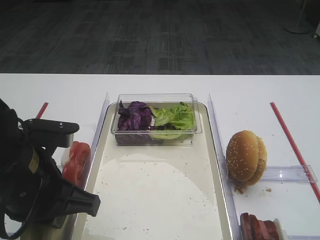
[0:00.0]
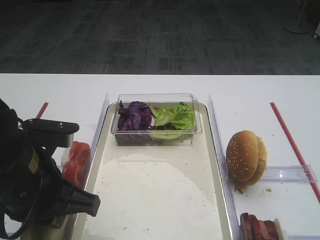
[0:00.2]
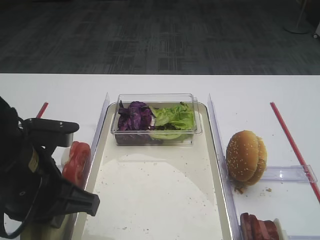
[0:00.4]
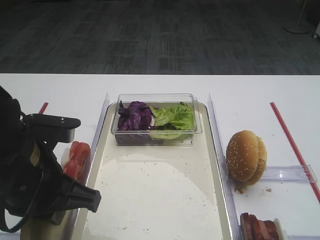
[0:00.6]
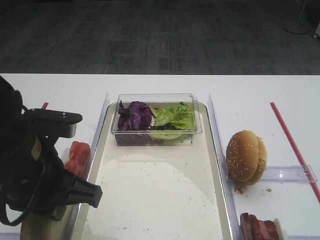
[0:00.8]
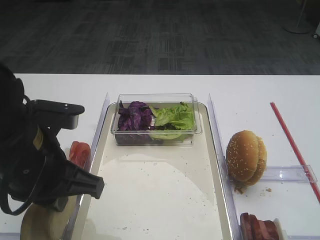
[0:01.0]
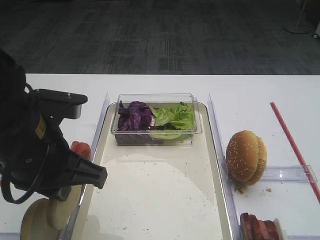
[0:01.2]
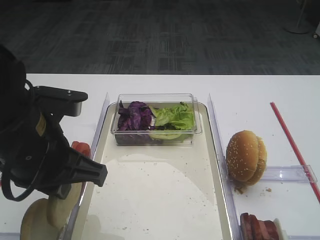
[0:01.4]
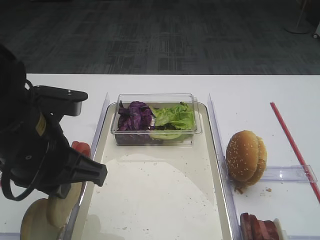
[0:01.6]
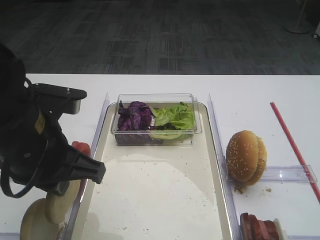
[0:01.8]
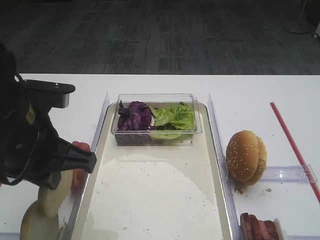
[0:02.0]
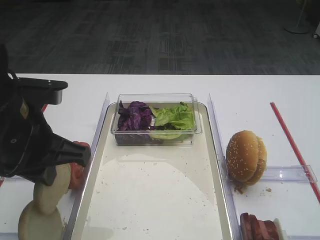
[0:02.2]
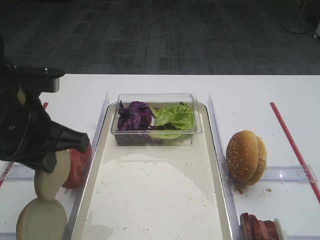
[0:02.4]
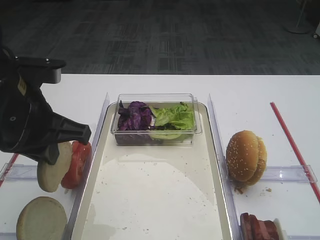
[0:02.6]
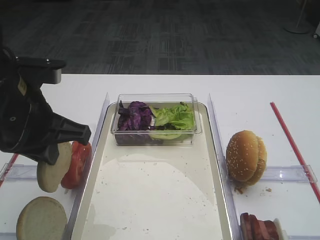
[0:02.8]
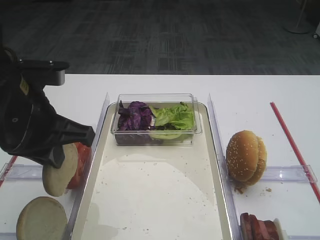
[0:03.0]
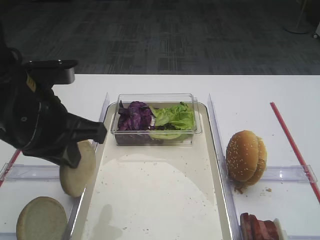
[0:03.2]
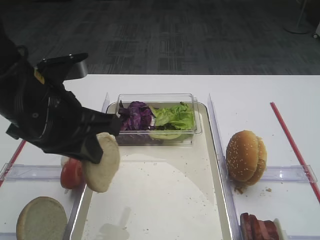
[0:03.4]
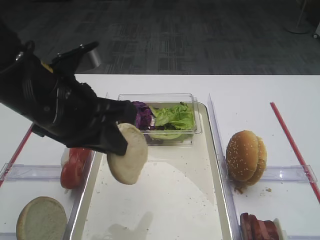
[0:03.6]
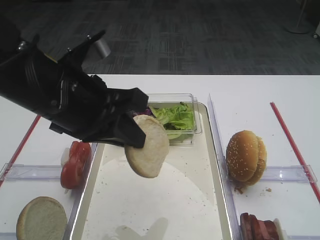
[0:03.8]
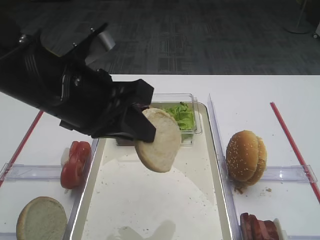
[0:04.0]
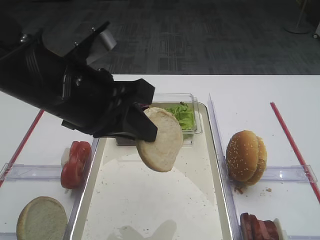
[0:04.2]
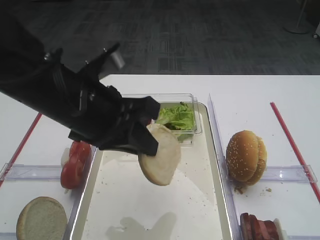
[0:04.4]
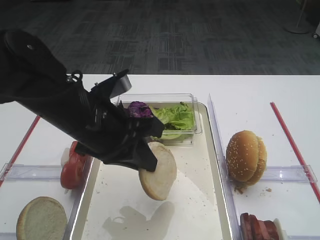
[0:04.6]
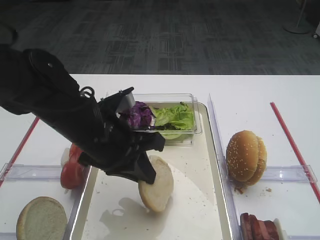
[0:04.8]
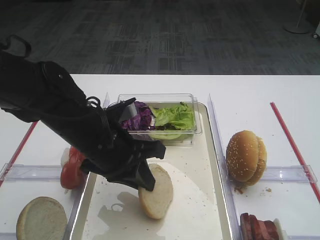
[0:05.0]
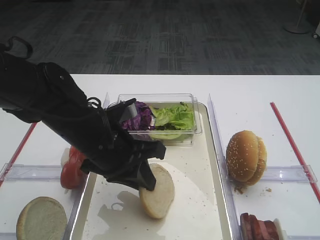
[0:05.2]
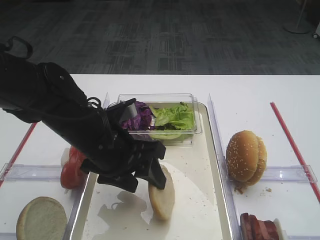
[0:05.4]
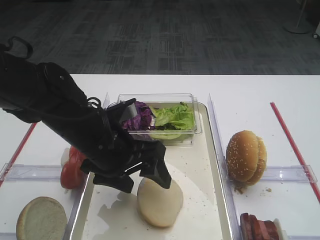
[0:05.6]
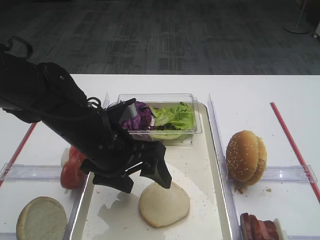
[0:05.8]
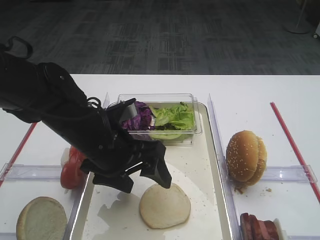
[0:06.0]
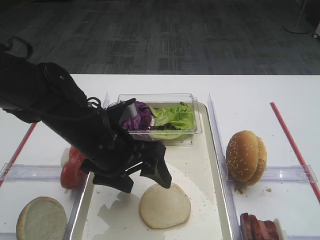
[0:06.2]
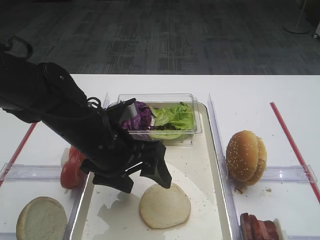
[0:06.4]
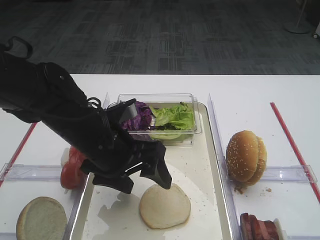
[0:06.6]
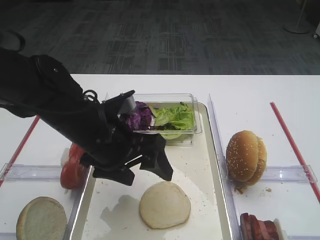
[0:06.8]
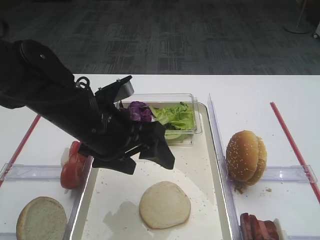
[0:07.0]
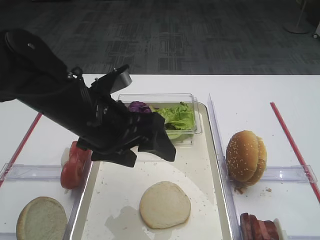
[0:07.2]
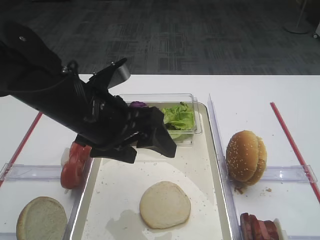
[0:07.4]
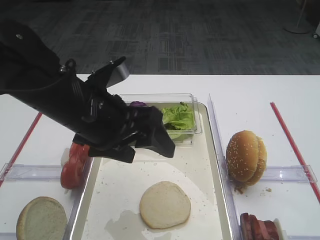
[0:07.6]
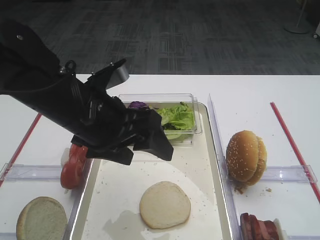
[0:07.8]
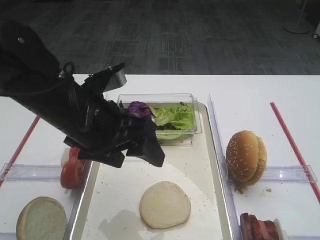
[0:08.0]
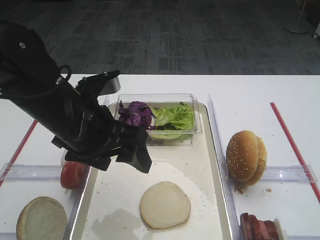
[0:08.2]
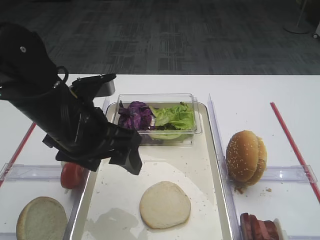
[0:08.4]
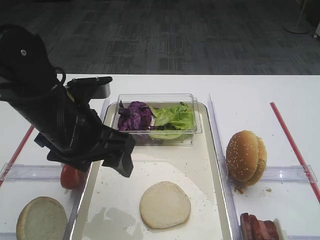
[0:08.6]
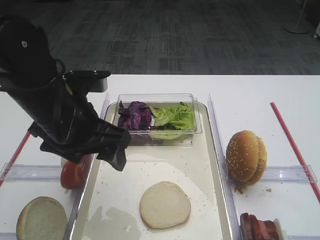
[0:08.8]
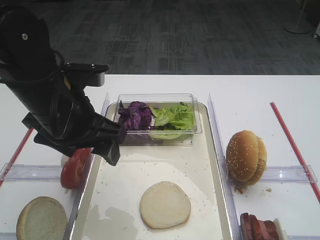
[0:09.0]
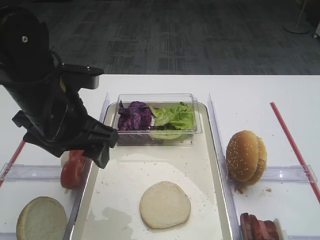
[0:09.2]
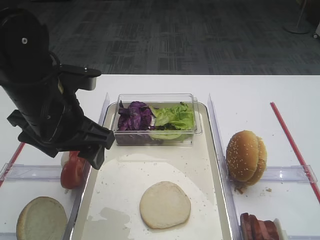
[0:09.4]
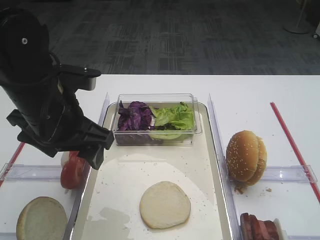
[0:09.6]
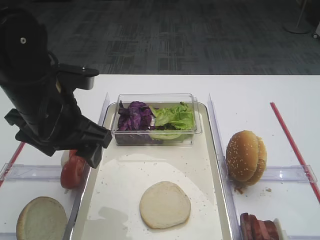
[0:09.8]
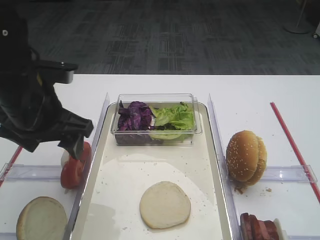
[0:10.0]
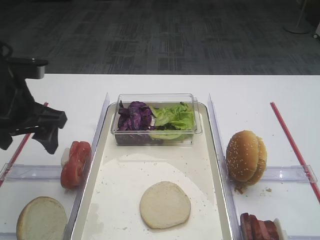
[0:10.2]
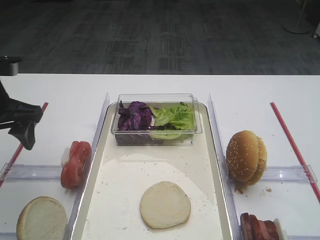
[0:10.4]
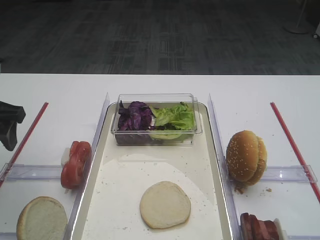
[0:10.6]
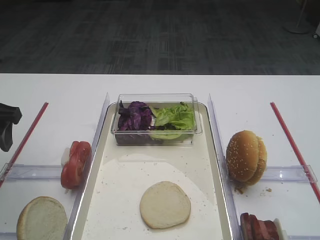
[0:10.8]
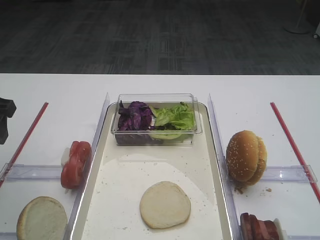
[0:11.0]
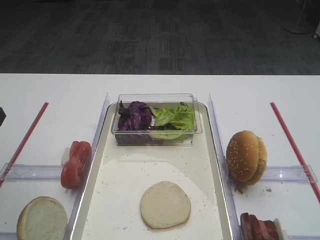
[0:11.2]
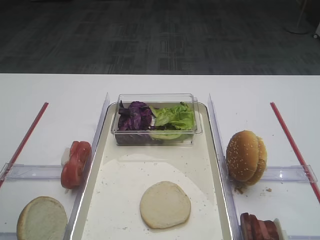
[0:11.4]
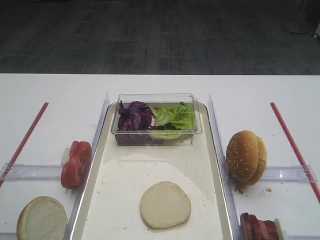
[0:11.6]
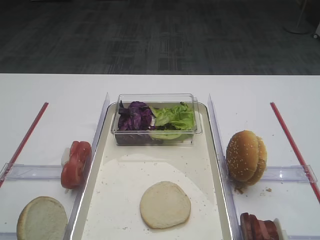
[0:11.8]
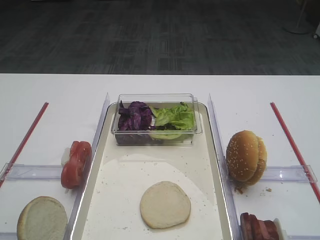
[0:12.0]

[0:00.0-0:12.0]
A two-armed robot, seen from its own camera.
Step, 0:01.2 to 0:06.8: Place the bread slice on the tray with the left gripper.
0:00.0 to 0:01.6: The grippers stay close to where they were, moving slightly.
0:01.6 to 0:03.0: The grippers move only a little.
0:03.0 to 0:04.4: The left gripper moves to the right, some 5 cm.
0:04.4 to 0:06.0: The left gripper is displaced downward by approximately 10 cm, and opens.
0:06.0 to 0:07.6: The left gripper is displaced upward by roughly 5 cm.
0:09.0 to 0:10.4: The left gripper travels to the left by approximately 10 cm.
0:10.4 to 0:12.0: The left gripper is displaced backward by roughly 20 cm.

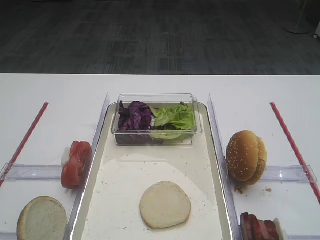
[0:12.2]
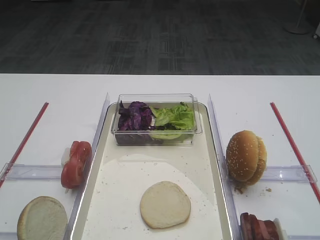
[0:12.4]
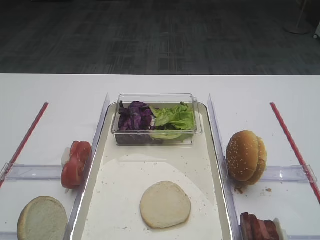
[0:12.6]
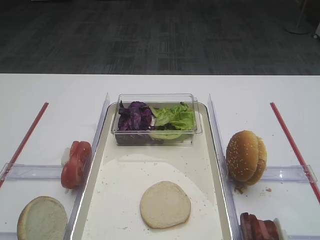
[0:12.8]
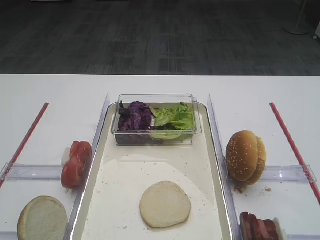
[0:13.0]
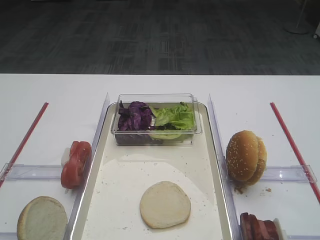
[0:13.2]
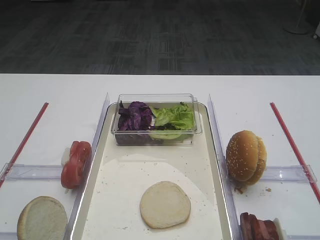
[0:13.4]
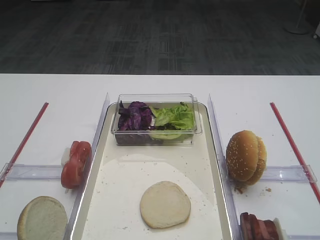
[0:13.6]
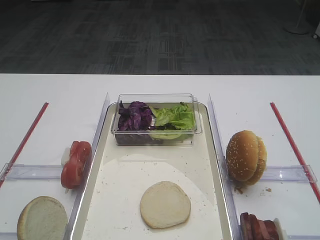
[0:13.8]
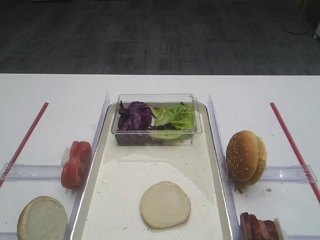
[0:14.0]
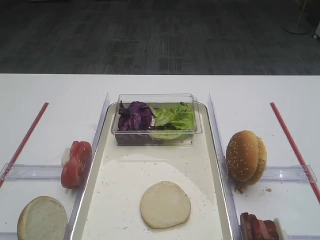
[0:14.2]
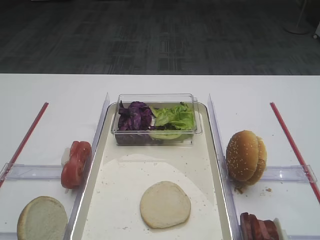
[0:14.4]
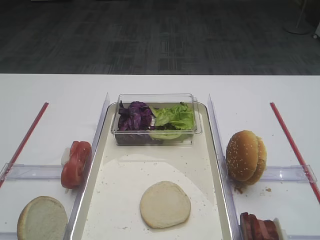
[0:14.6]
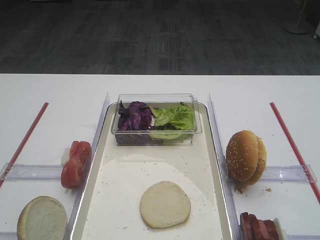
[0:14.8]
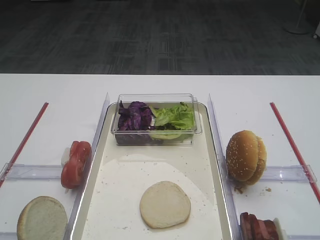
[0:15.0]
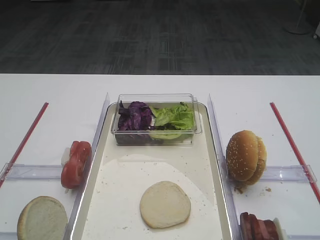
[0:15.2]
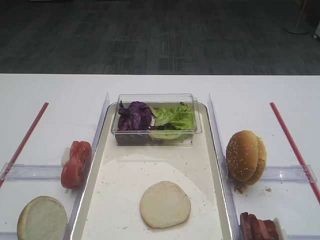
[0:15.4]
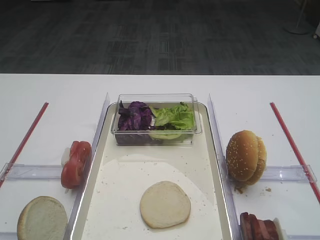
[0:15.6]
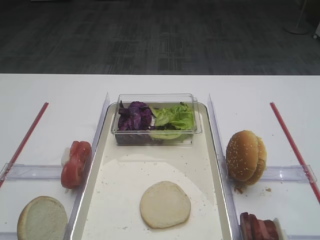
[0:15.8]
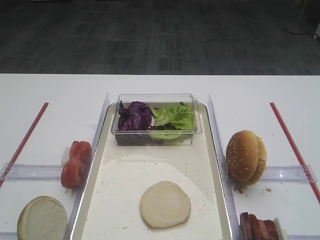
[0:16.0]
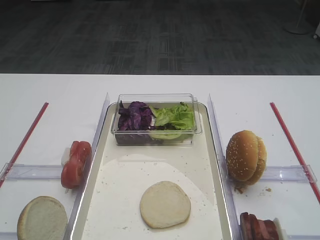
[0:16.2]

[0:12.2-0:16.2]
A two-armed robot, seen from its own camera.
0:13.6 to 0:16.2: The two grippers keep their place.

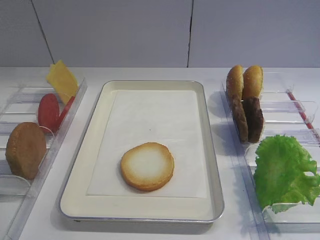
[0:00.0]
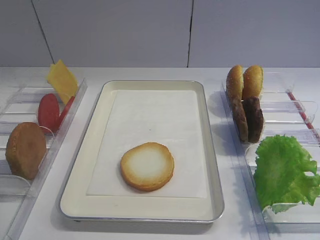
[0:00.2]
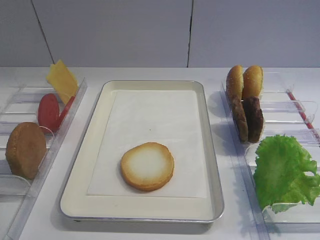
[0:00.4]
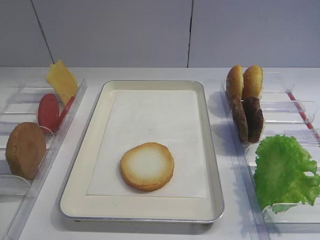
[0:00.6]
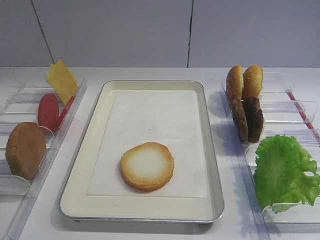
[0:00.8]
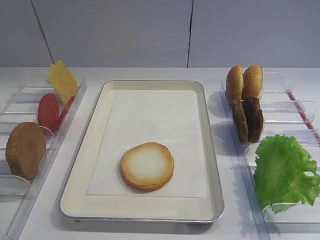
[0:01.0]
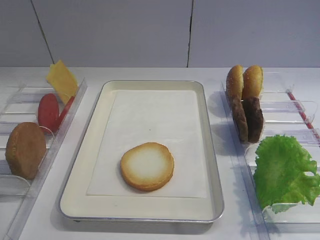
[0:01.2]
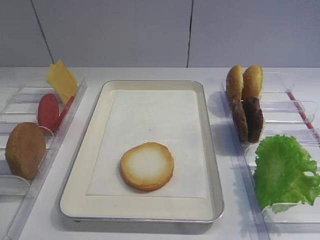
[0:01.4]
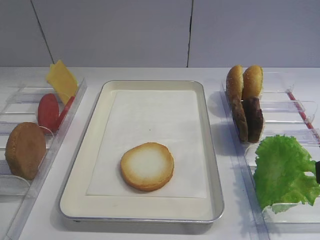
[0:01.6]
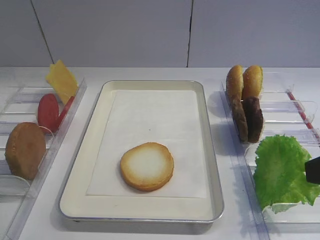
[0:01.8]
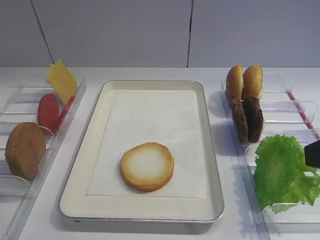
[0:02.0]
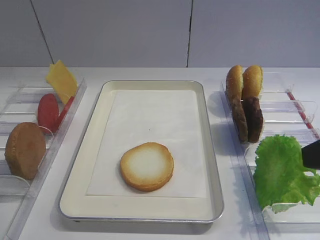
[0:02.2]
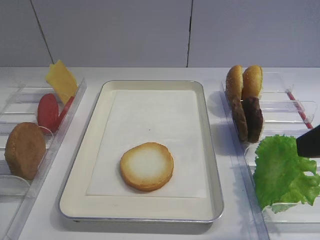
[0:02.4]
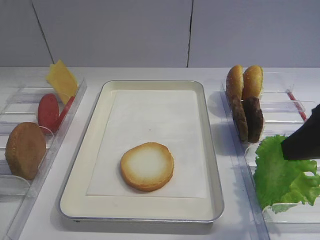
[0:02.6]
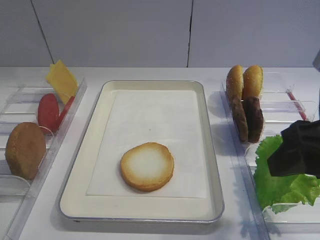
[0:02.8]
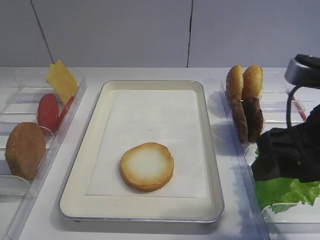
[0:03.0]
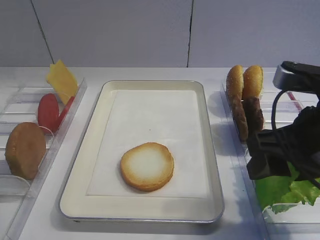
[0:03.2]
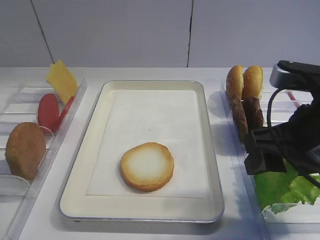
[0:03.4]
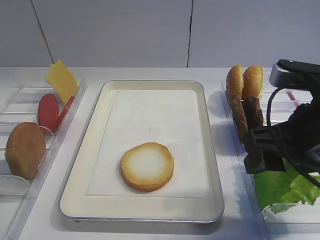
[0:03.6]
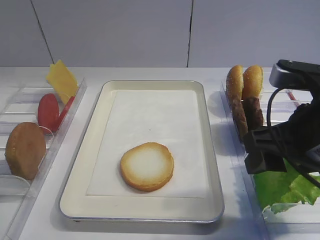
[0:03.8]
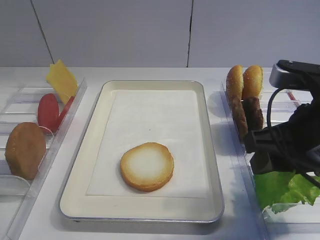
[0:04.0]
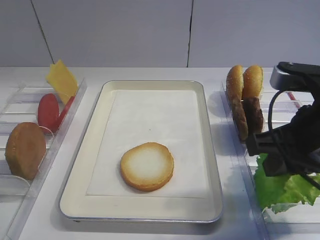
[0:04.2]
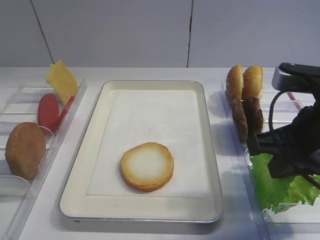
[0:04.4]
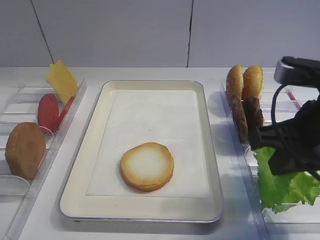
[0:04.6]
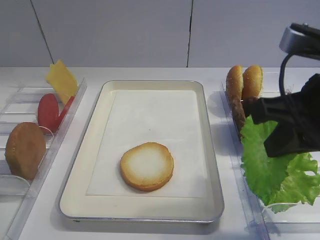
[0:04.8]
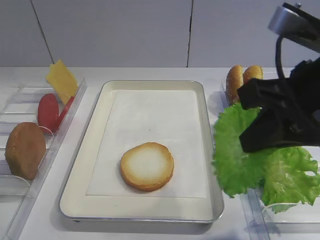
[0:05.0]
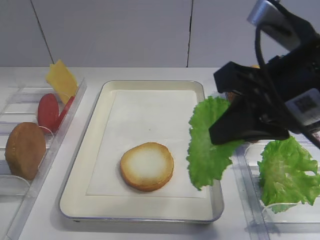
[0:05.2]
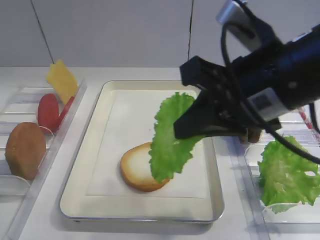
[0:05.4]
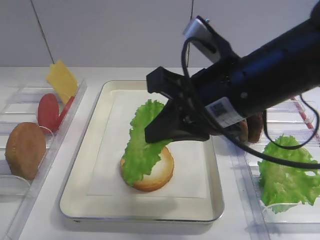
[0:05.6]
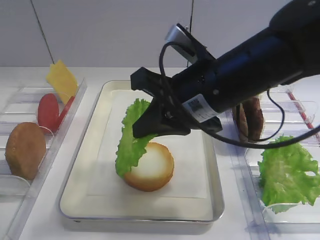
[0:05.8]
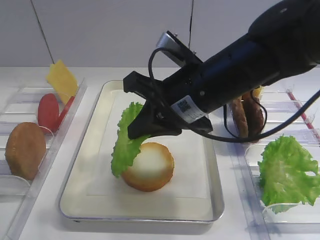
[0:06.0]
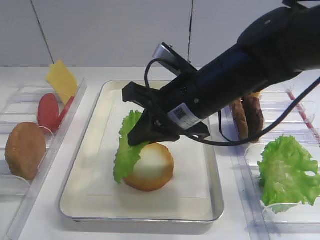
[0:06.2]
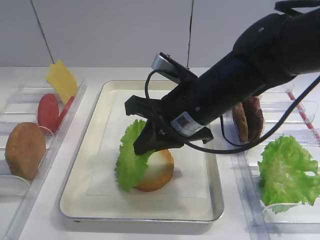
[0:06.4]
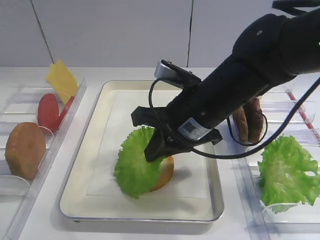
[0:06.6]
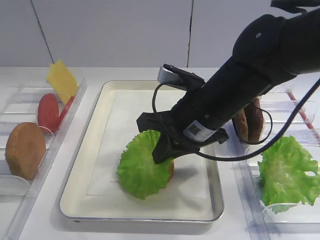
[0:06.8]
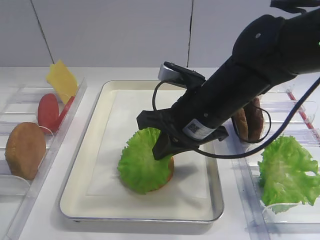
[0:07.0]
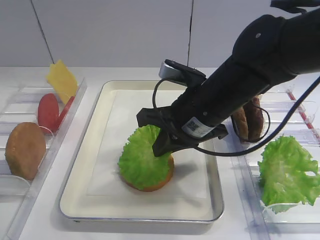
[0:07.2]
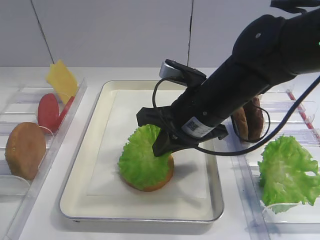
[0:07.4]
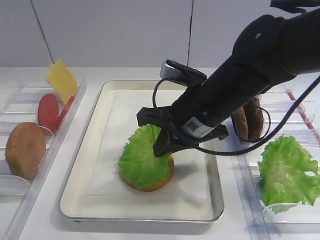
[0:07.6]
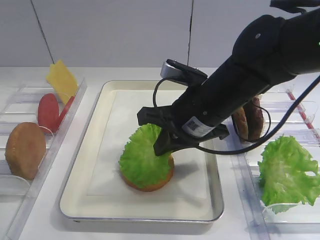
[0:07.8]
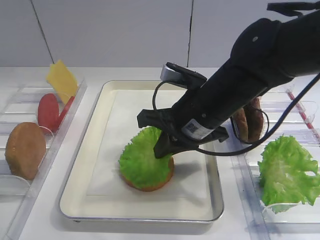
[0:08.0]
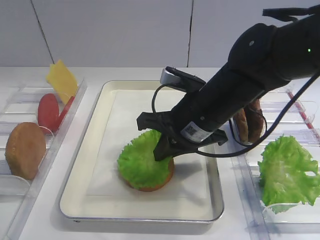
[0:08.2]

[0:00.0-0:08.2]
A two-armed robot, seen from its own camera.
Step, 0:00.0 to 0:04.8: Pick up the lettuce leaf with the right gripper.
0:01.6 to 0:03.2: The right gripper shifts roughly 10 cm forward and to the left.
0:03.2 to 0:05.0: The right gripper heads upward, covering about 5 cm, and closes its fingers.
0:05.0 to 0:06.6: The right gripper goes roughly 15 cm to the left, downward and forward.
0:06.6 to 0:08.2: The grippers move only a little.
